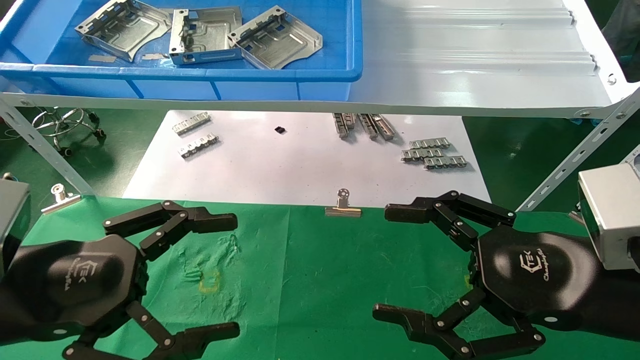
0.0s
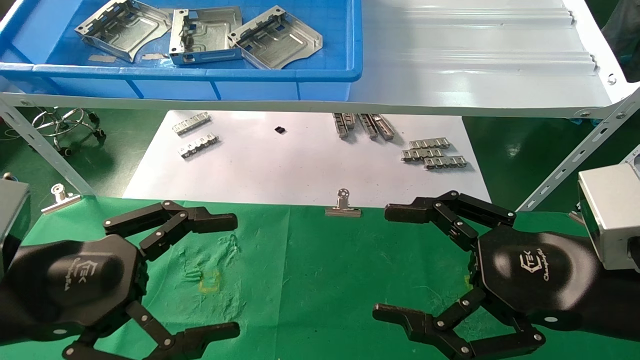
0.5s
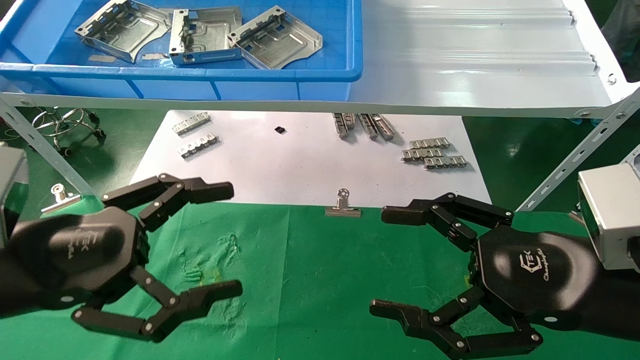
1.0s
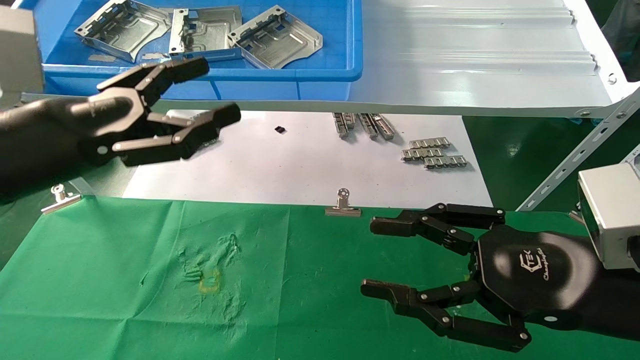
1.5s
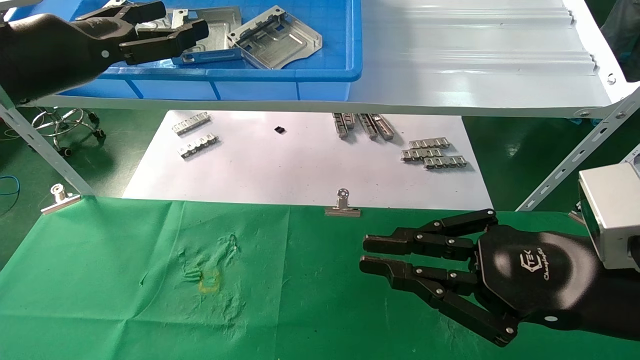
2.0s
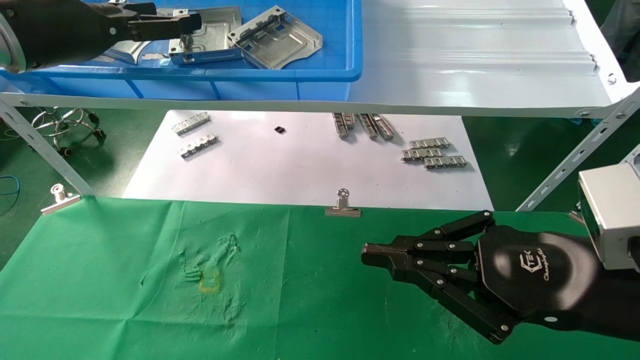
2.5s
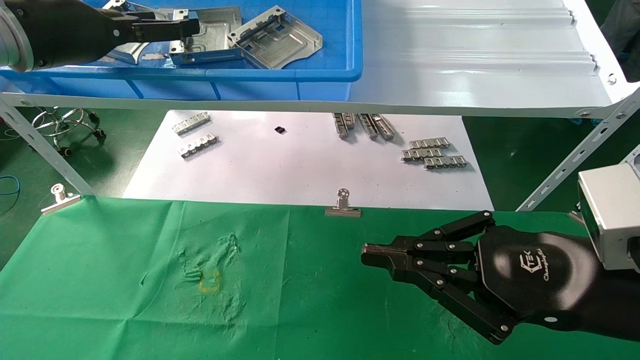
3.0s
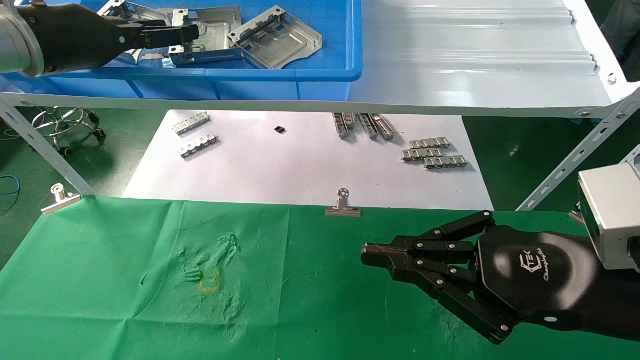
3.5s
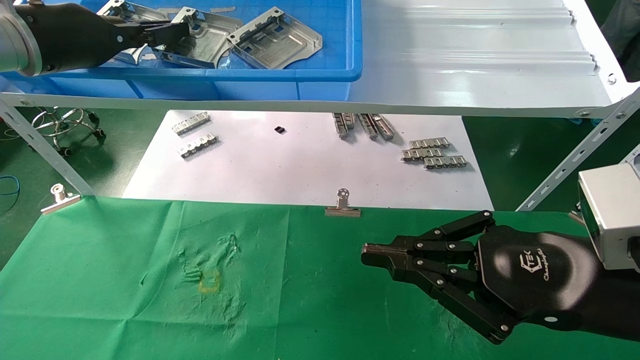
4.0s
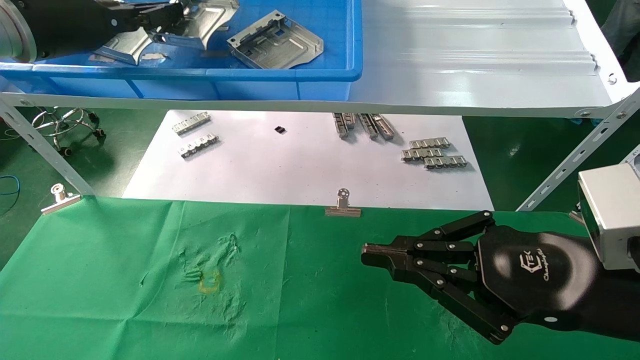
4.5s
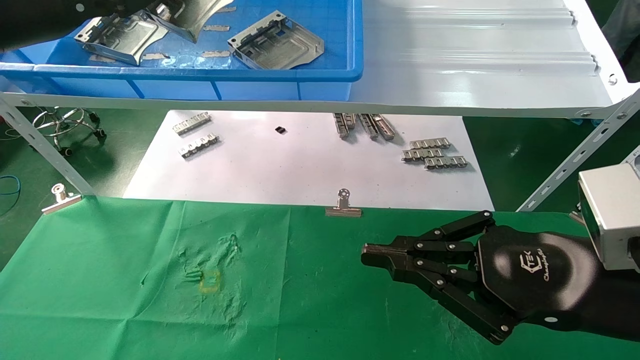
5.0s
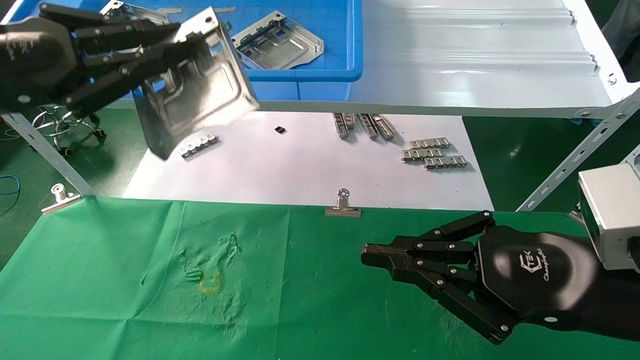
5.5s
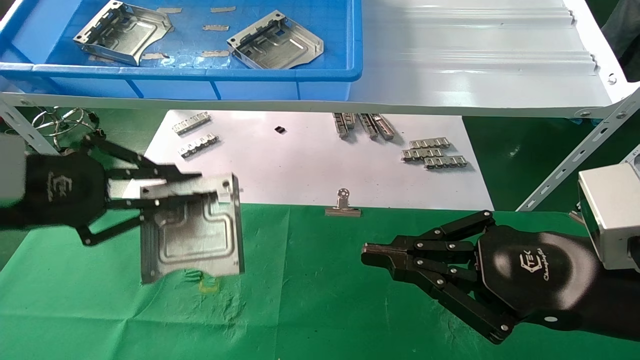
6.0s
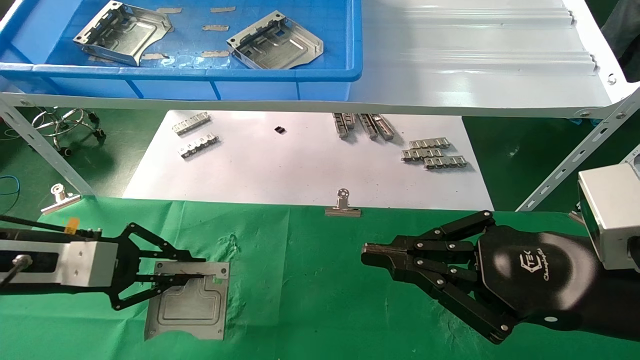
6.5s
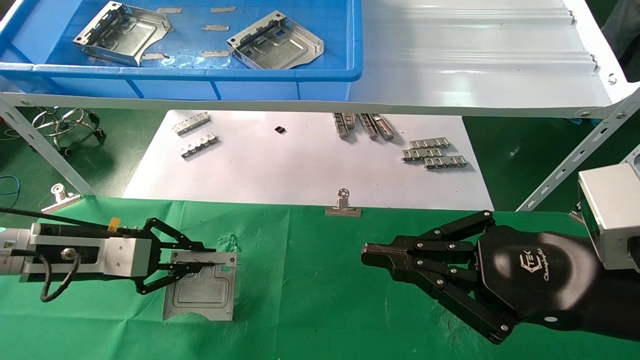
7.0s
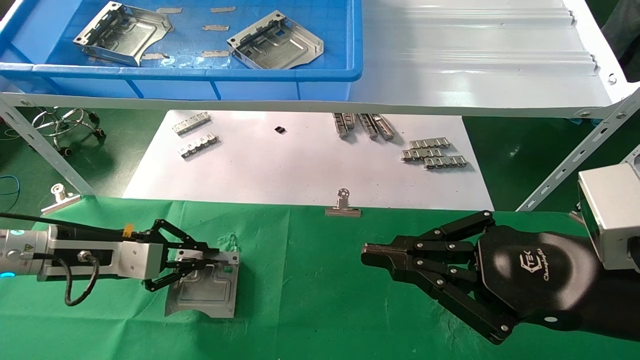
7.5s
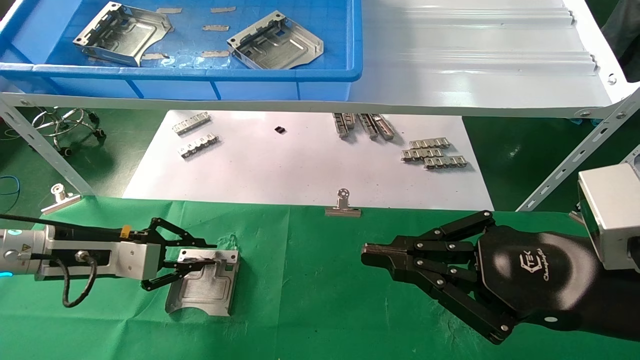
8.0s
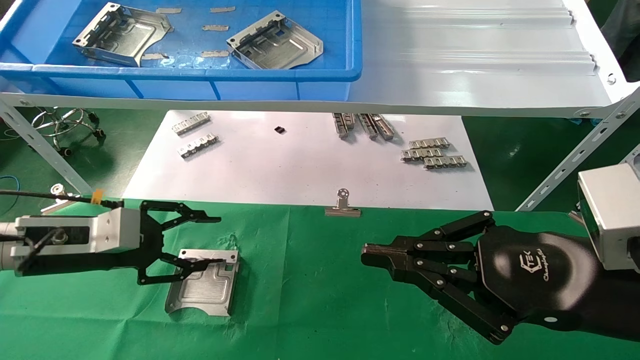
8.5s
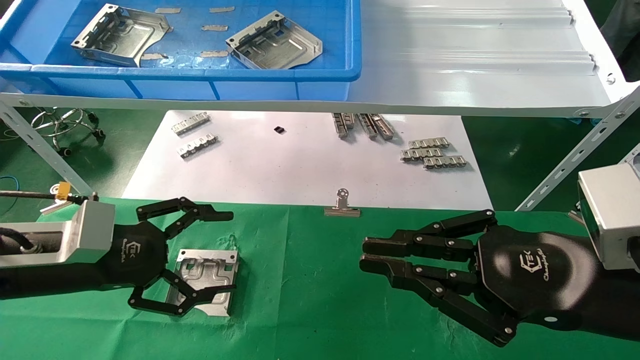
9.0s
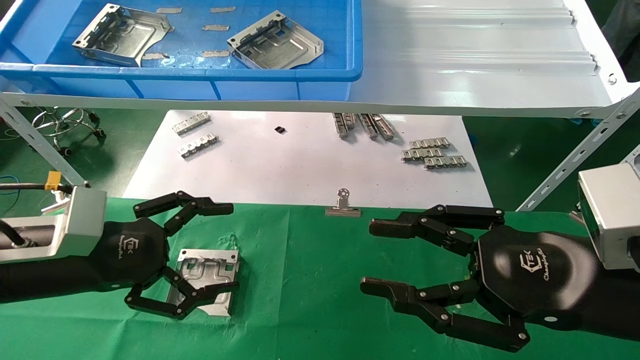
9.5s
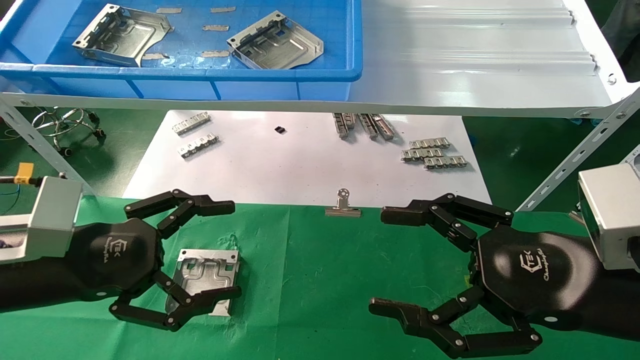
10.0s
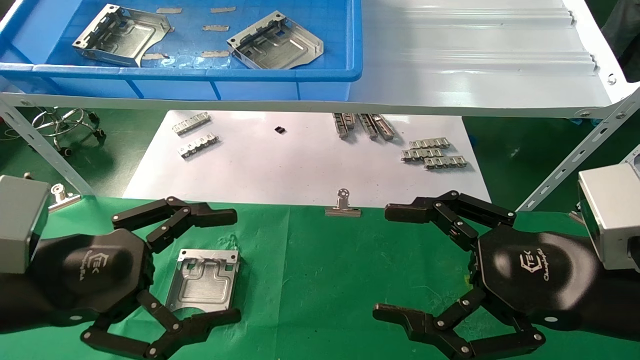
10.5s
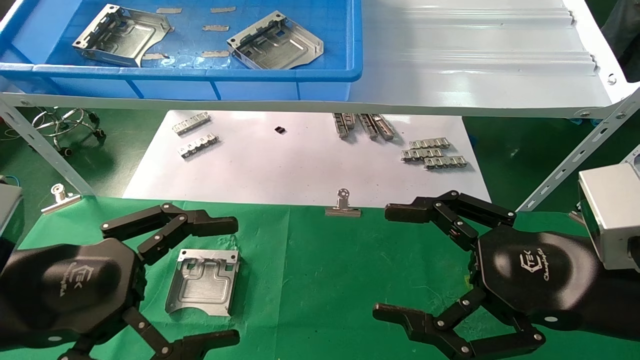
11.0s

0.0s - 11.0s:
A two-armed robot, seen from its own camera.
Task of the whole recording: use the mechanical arm to pick up the parts and place them on the table.
Step, 1.5s - 4.0s: Pick up the hard drive bracket from the feeding area.
Step, 4.5s - 8.0s: Place the hard drive bracket into the box.
0.0s - 2.0s: The right gripper closes up; the left gripper travels upward and forward by approximately 20 cm.
2.0s - 3.5s: The left gripper moves forward, roughly 5 cm.
3.5s - 5.5s: The left gripper is displaced backward by roughly 15 cm, and closes its fingers.
5.5s - 7.5s: The left gripper heads downward and forward, covering some 25 cm.
7.5s - 9.0s: The left gripper goes some 5 cm backward, and opens up.
9.0s - 11.0s: The left gripper is displaced backward by about 10 cm; the right gripper opens its fingers.
